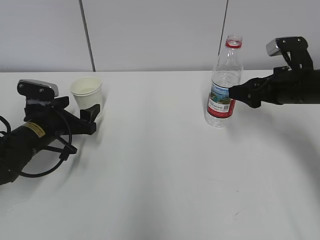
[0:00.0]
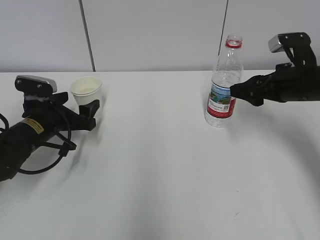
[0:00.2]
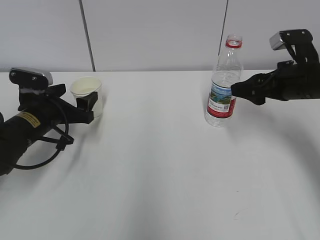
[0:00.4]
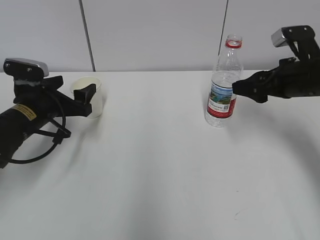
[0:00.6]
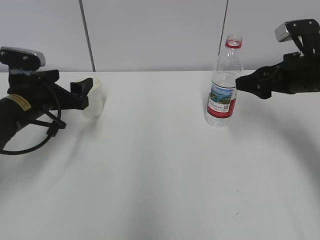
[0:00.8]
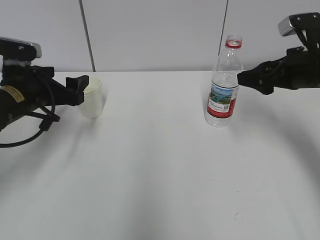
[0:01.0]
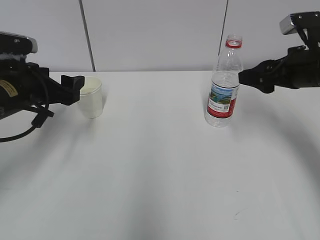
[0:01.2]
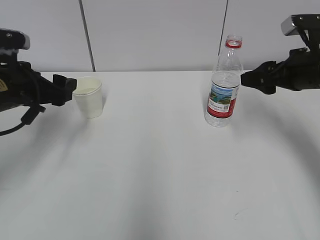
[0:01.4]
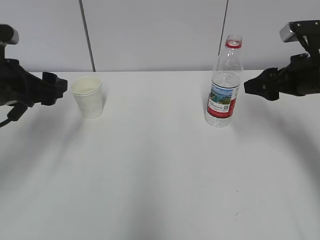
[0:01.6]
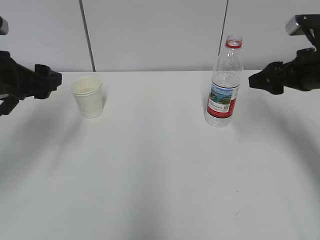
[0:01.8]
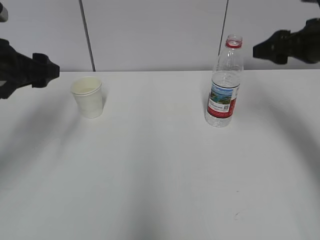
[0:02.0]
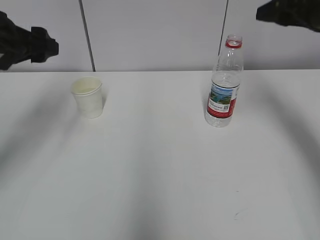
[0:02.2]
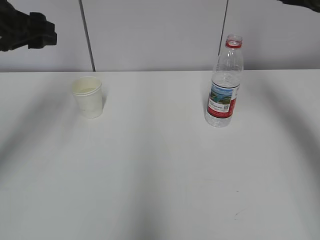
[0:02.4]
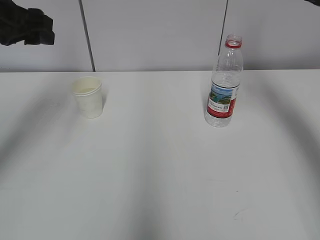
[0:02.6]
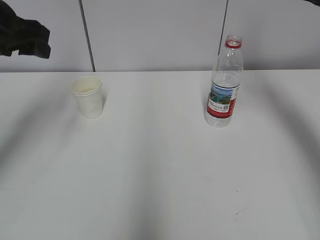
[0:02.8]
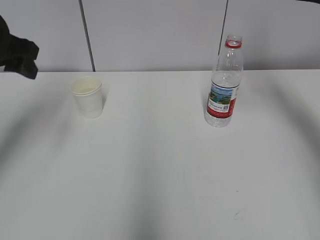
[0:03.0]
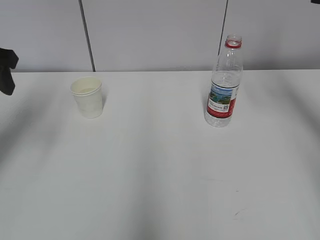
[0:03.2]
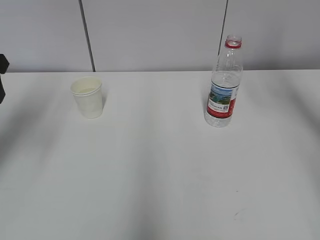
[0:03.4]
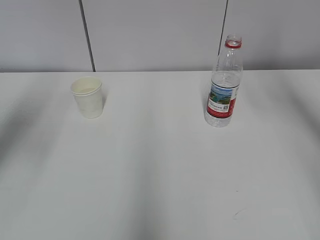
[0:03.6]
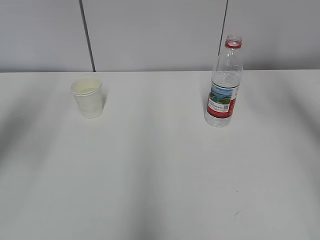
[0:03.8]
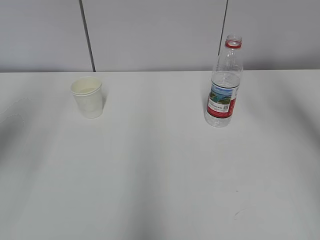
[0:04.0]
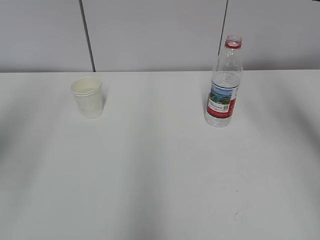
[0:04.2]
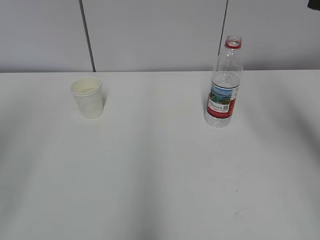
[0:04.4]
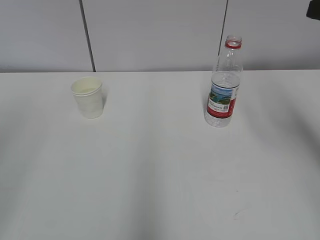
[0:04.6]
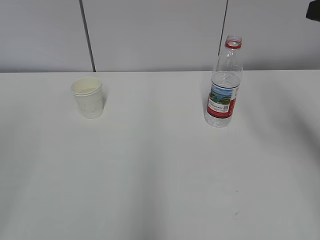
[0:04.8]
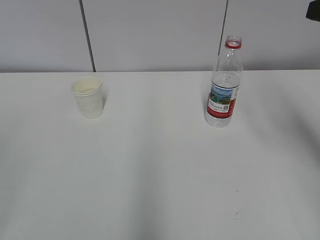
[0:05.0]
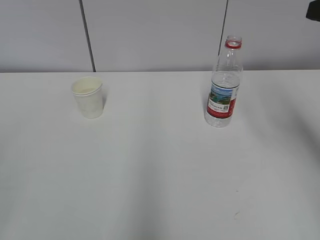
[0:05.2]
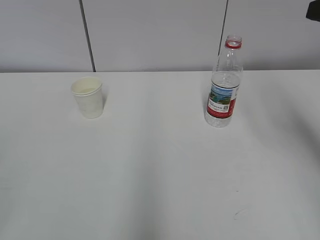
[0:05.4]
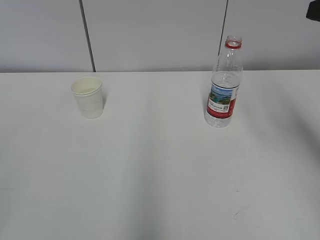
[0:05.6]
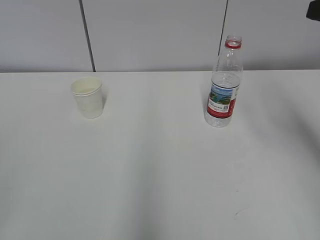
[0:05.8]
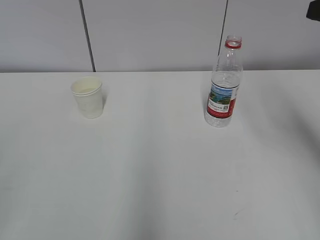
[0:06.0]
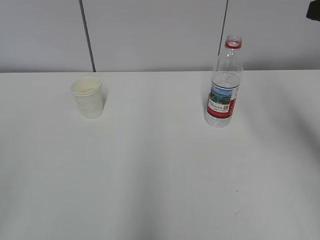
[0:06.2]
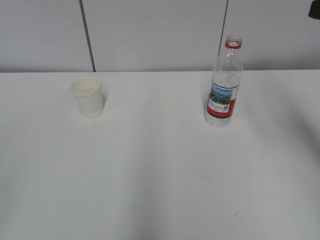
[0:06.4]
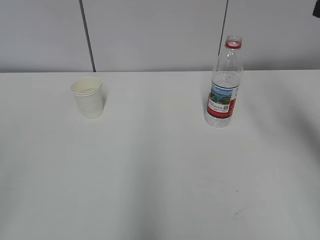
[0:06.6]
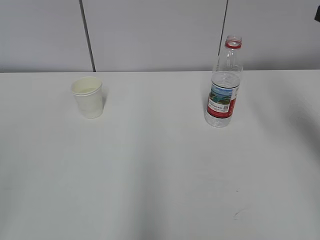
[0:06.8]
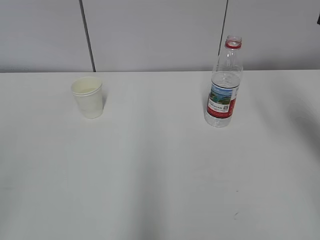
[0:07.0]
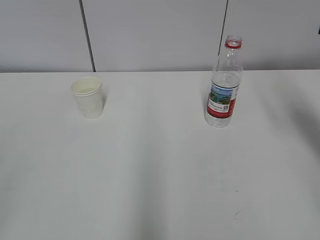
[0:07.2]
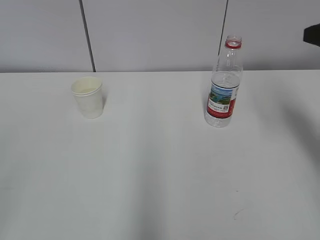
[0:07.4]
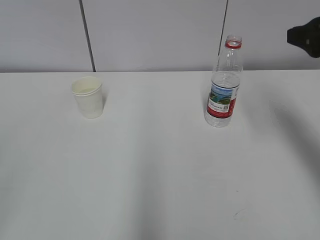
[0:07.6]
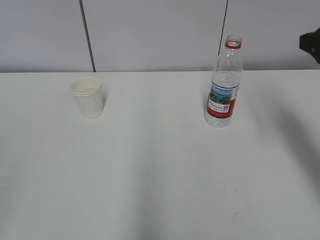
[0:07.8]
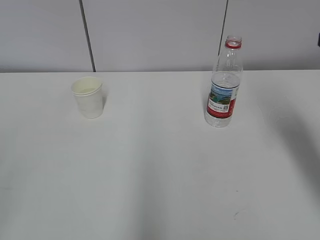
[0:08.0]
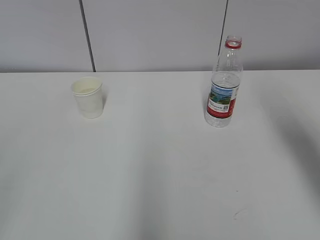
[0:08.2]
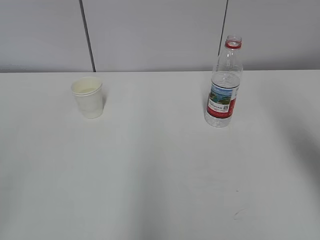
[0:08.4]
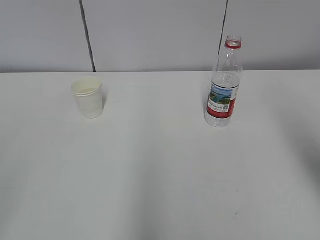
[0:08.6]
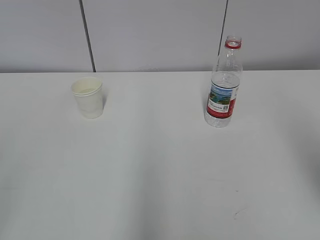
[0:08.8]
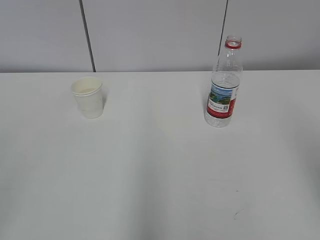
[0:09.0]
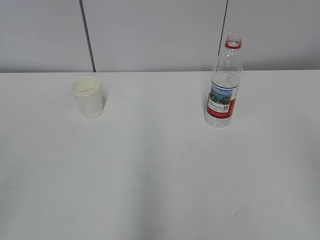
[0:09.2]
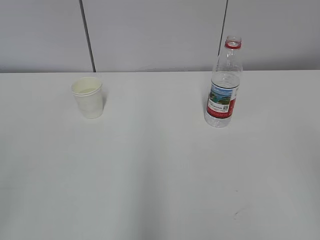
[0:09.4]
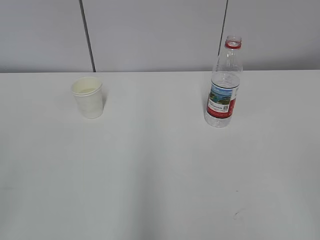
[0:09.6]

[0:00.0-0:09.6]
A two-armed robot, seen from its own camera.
0:00.0 to 0:01.6: The left gripper shifts roughly 15 cm upward.
0:01.6 to 0:03.2: The right gripper goes some 15 cm upward and to the right; the left gripper moves upward, roughly 10 cm.
0:03.2 to 0:04.8: The left gripper is displaced backward by approximately 25 cm; the right gripper goes some 10 cm backward.
0:08.0 to 0:09.6: The right gripper moves backward, approximately 30 cm.

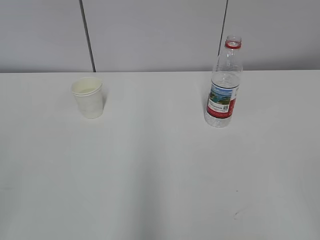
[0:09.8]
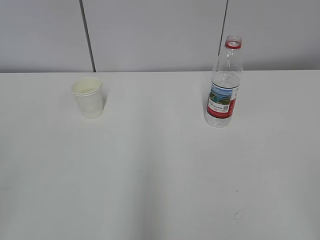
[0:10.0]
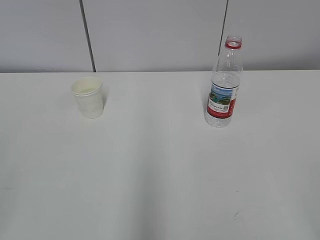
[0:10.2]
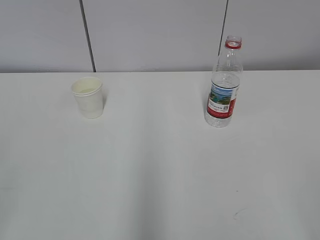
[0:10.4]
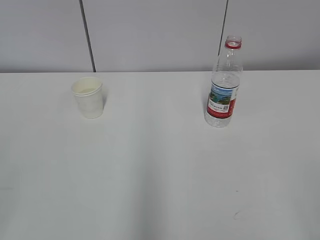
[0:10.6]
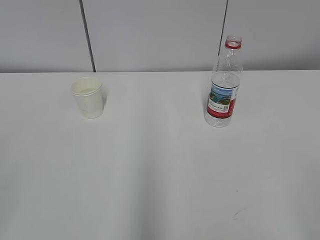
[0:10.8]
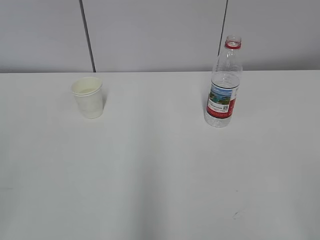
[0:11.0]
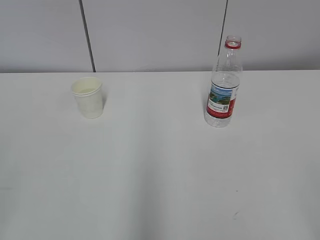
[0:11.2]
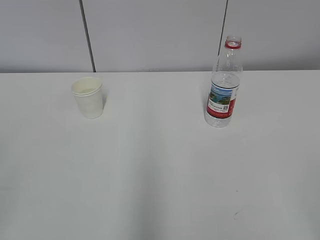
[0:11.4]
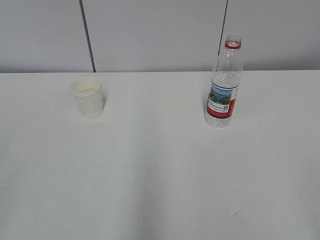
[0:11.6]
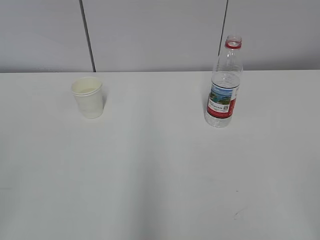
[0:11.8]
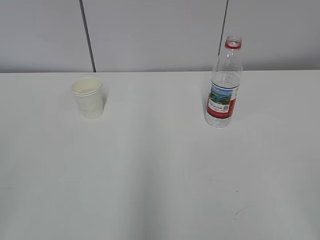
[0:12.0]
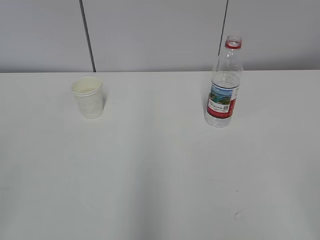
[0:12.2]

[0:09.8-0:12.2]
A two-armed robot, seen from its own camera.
0:11.0 to 0:12.2: Neither gripper changes place.
